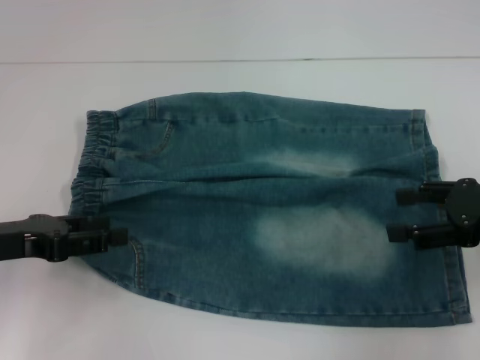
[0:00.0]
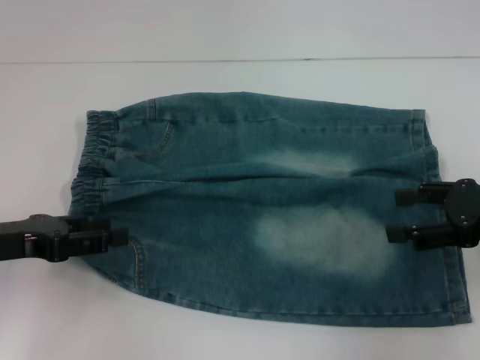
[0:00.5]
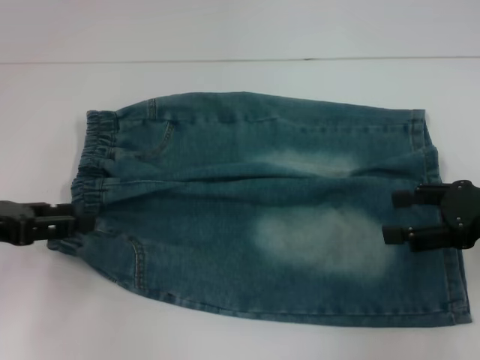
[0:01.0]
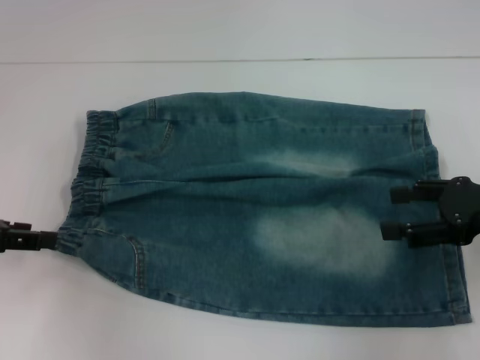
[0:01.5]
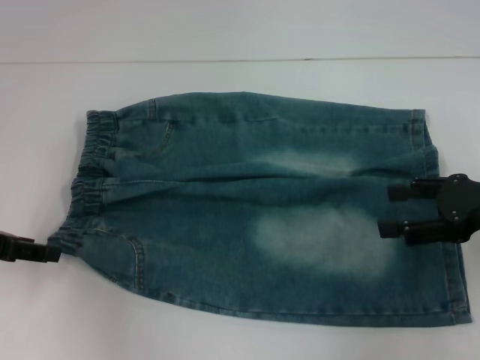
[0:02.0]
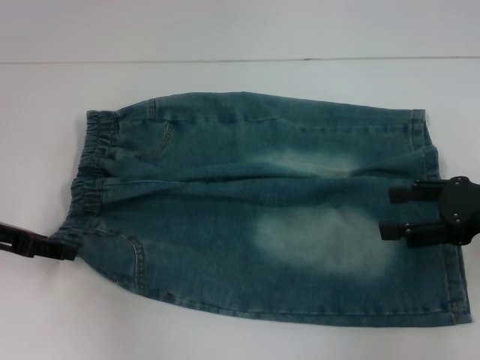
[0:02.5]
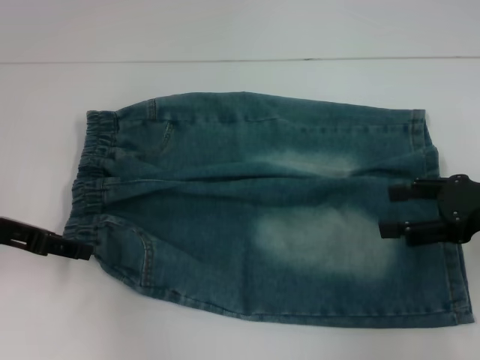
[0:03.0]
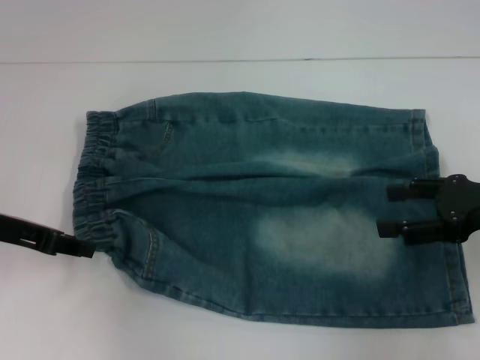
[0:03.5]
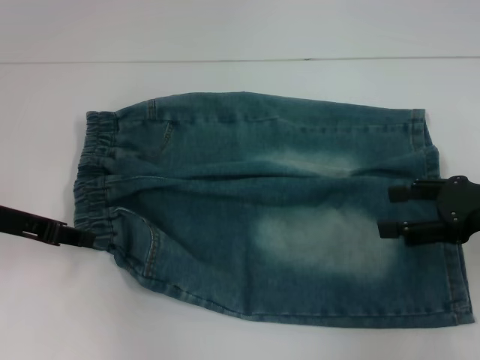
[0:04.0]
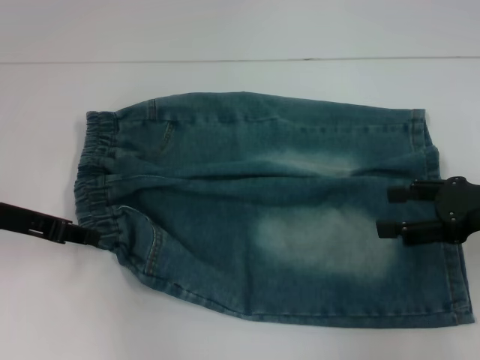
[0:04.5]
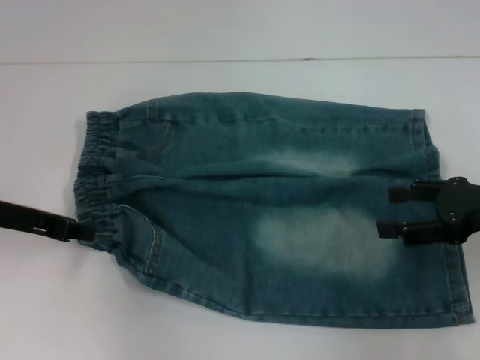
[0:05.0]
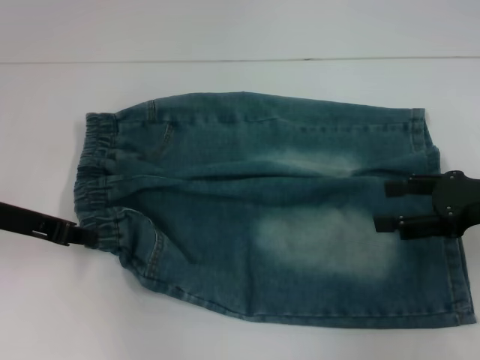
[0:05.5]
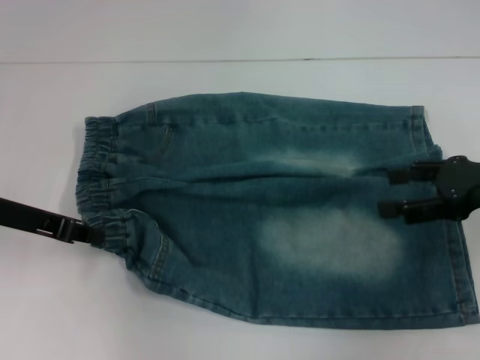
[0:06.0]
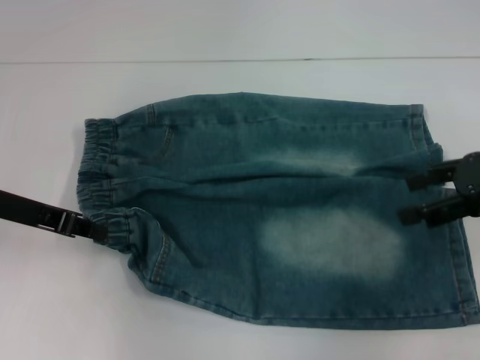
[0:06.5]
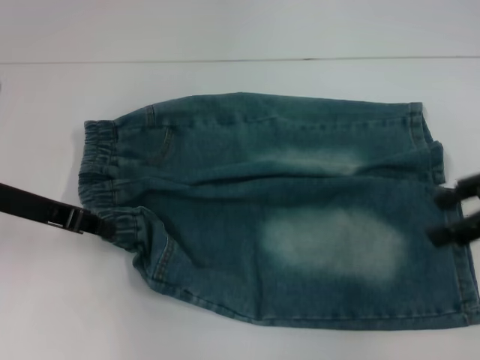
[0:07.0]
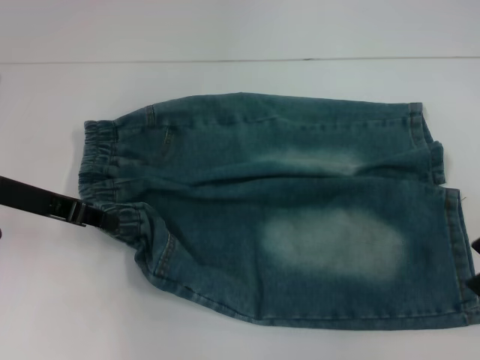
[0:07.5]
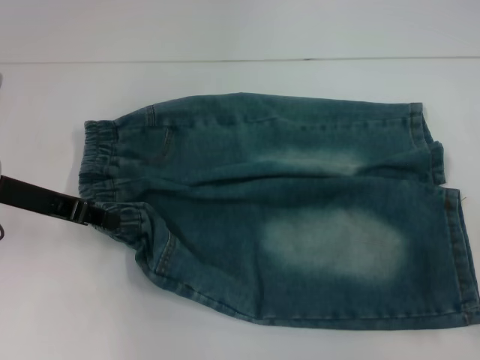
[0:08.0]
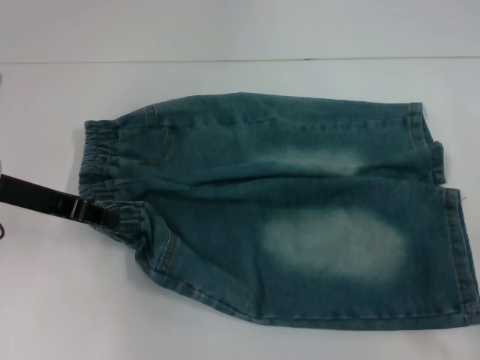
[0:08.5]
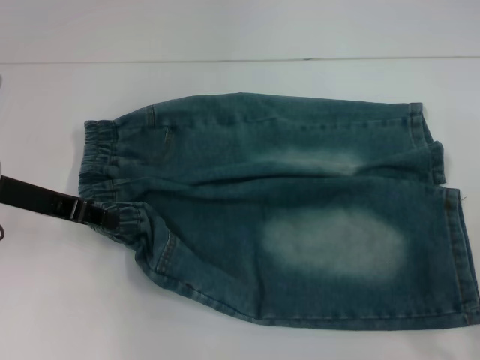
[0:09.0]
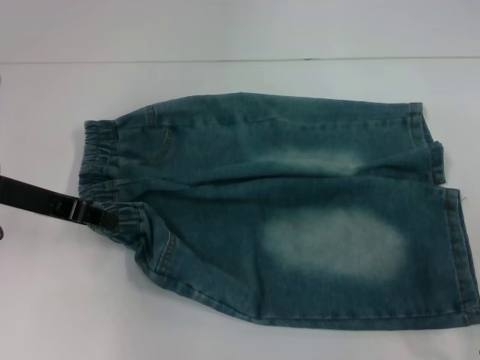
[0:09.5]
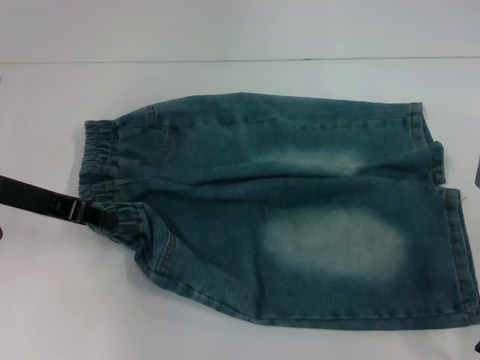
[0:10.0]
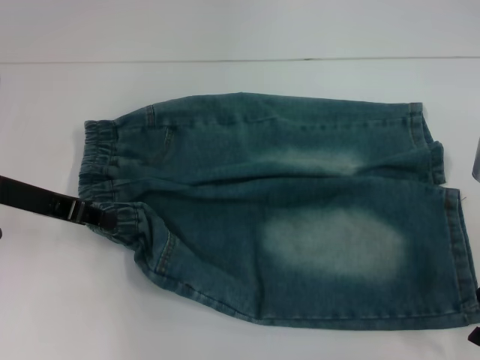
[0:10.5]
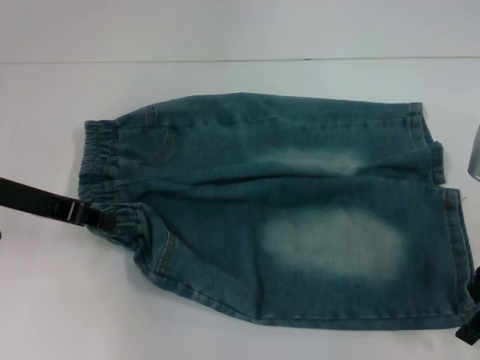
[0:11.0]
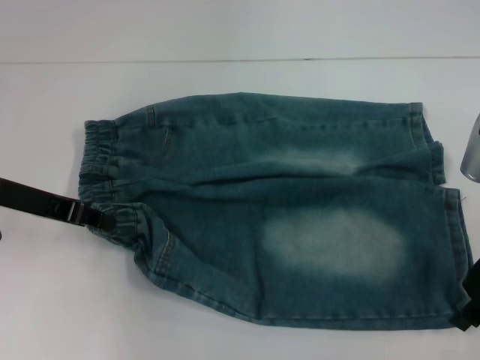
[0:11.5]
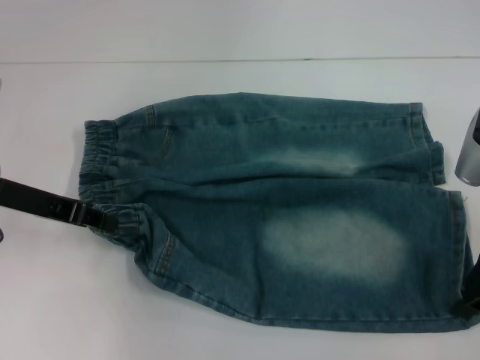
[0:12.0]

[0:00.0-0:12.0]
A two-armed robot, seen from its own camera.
Step, 0:00.0 to 0:05.5: Hold the lower left waistband with your left hand.
0:02.0 to 0:04.0: The left gripper closes its fingers.
0:04.0 to 0:06.0: The grippers stay close to where they were, moving slightly.
0:10.0 to 0:12.0: The right gripper closes its fingers.

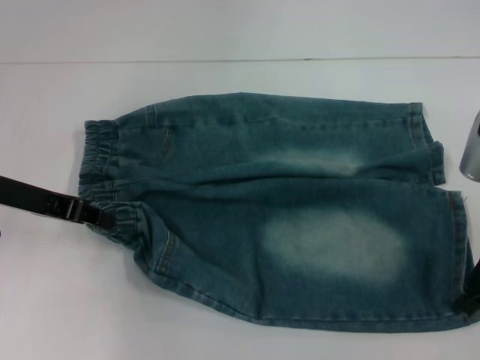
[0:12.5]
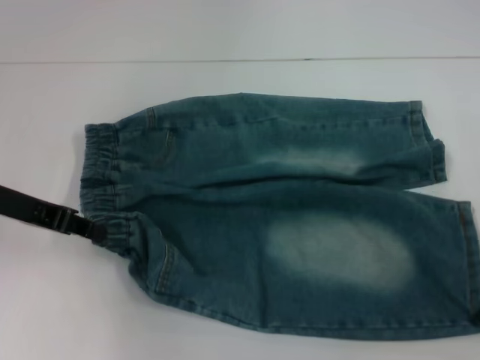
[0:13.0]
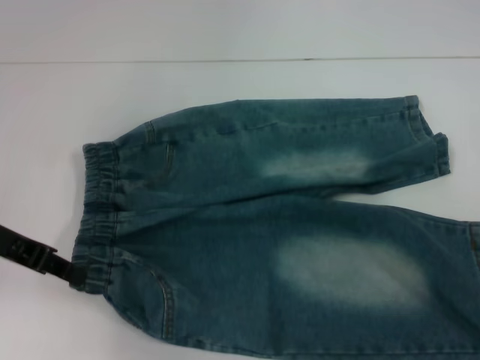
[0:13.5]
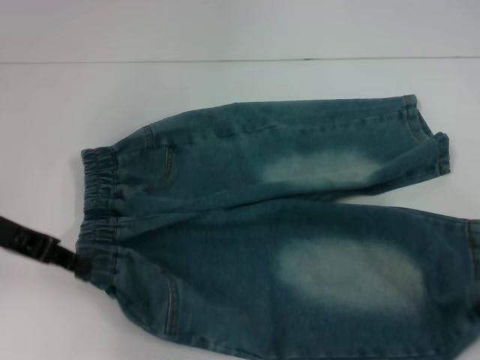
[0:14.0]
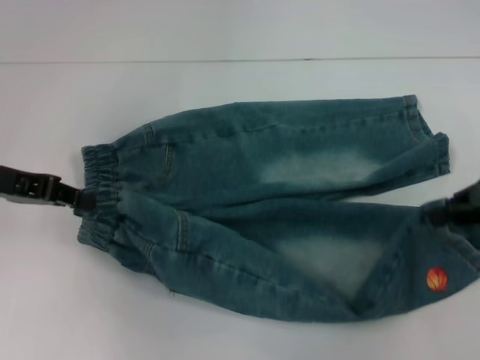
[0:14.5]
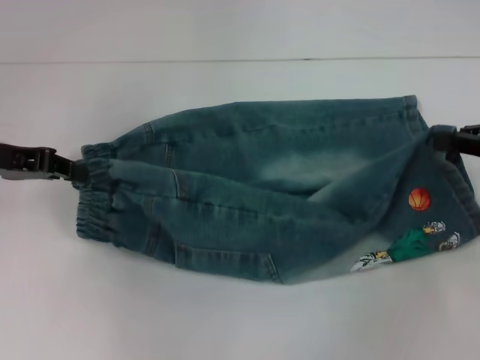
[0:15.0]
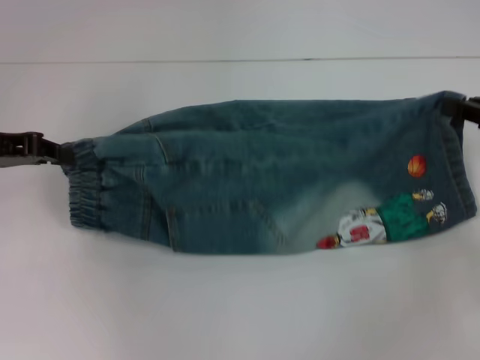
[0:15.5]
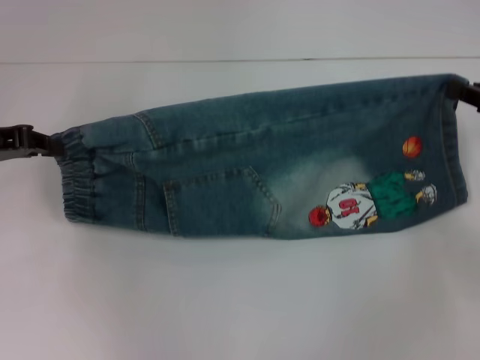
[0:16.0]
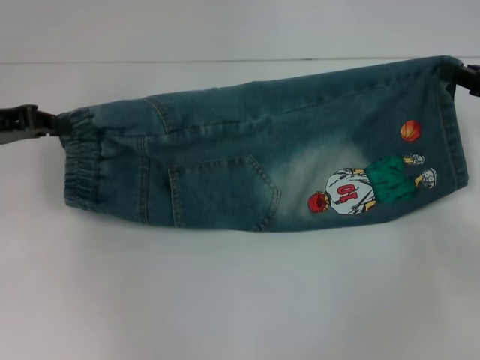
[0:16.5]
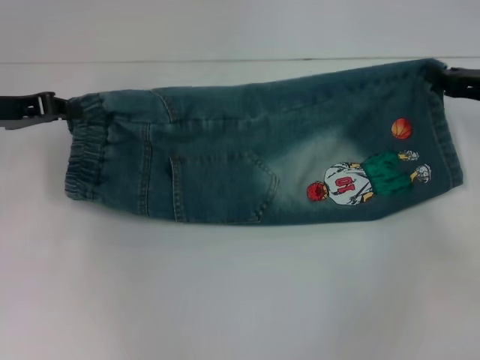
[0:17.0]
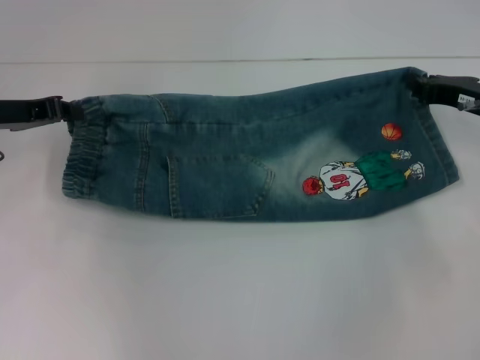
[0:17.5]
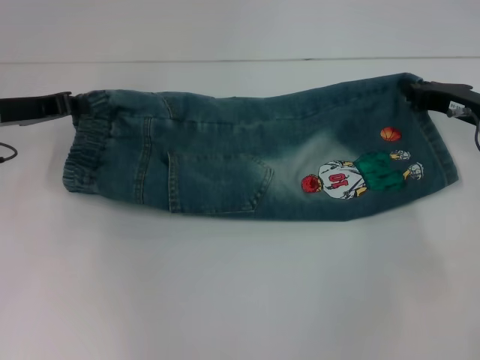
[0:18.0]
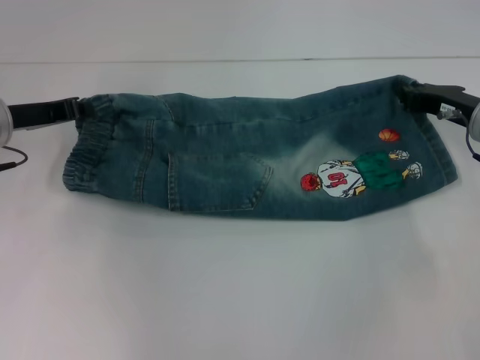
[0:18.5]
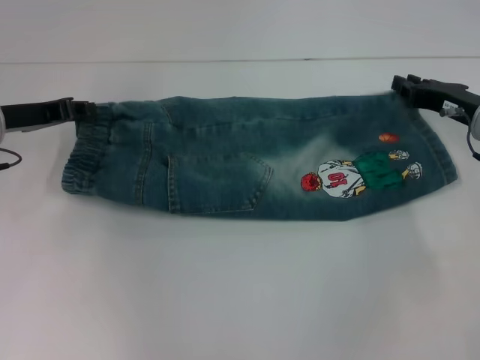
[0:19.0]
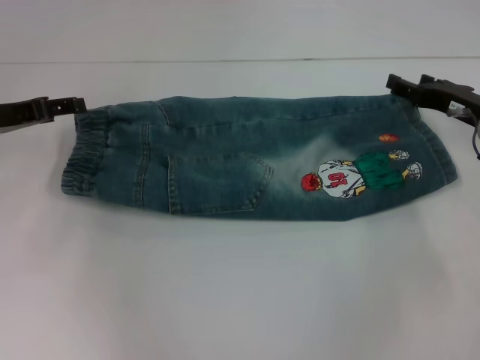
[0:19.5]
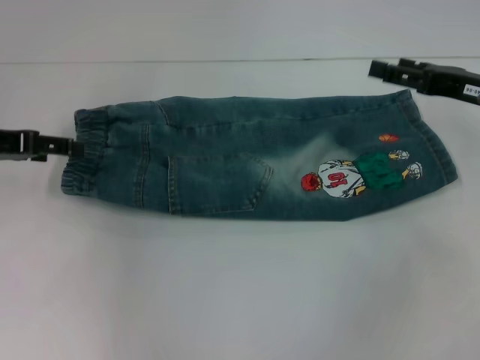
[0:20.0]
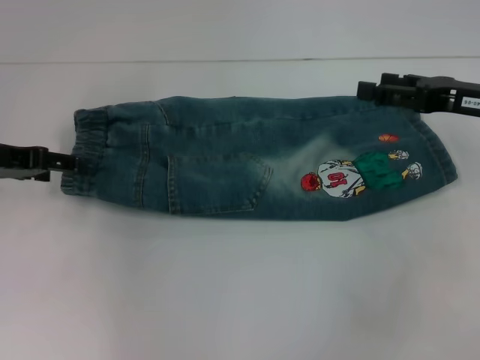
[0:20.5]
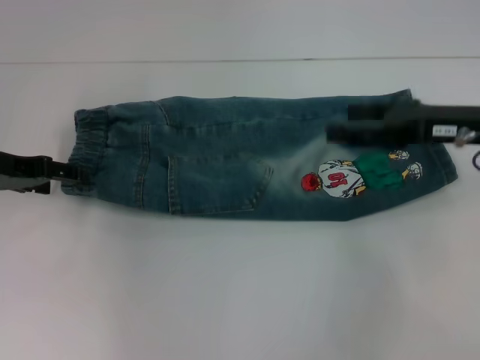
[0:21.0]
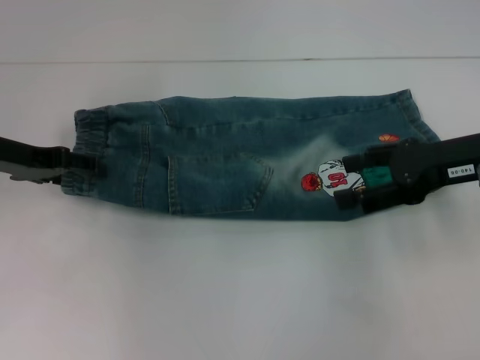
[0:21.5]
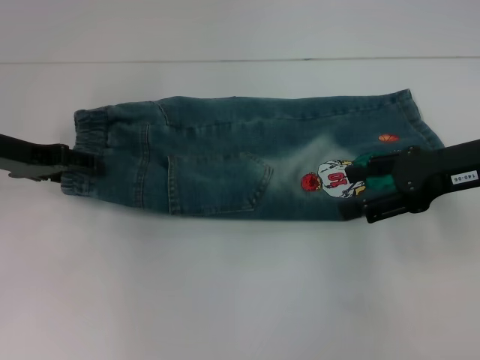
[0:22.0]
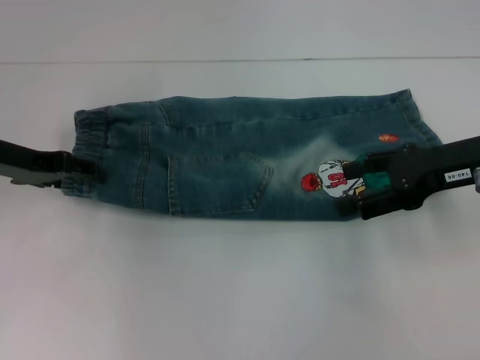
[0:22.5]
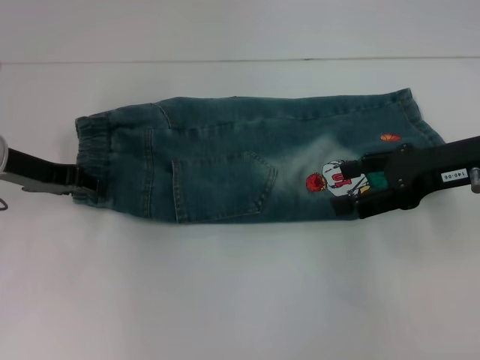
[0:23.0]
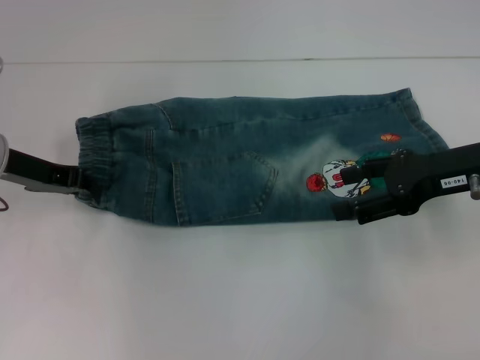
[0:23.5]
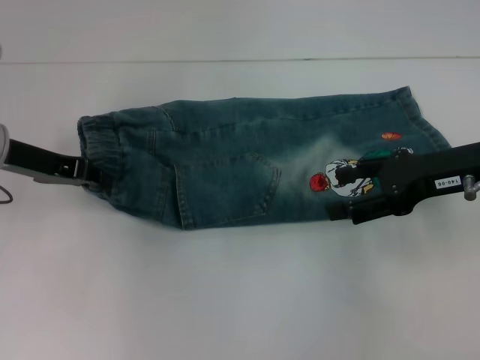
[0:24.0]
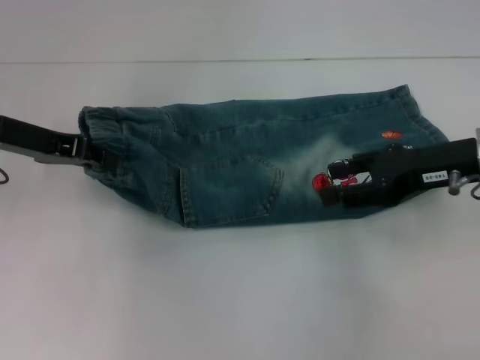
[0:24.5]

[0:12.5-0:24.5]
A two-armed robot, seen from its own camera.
Step, 0:13.0 to 0:19.0: Fold upward with your right hand.
Step, 0:19.5 to 0:23.5: Hold the waistband with your left hand.
0:12.5 to 0:14.5: The right gripper shifts about 5 cm to the right.
0:16.5 to 0:18.5: The right gripper is displaced to the left and downward by approximately 10 cm. Meanwhile the left gripper changes place by about 5 cm.
0:18.5 to 0:20.5: The left gripper changes place by approximately 5 cm, and opens up, while the right gripper heads upward, covering approximately 5 cm, and opens its fingers.
0:22.5 to 0:24.5: The left gripper closes up.

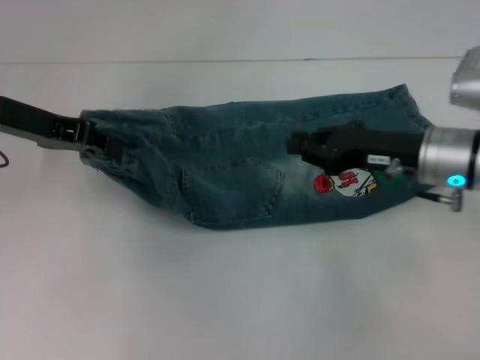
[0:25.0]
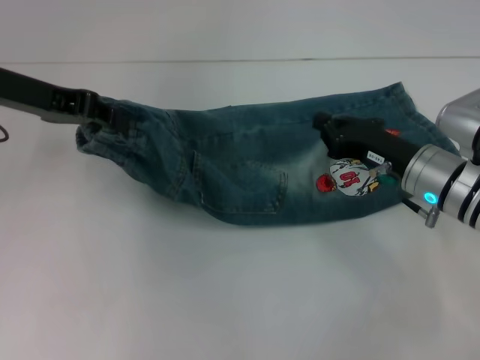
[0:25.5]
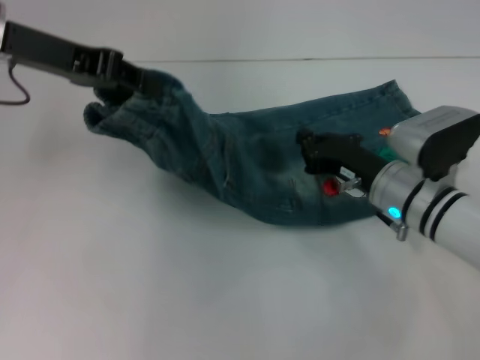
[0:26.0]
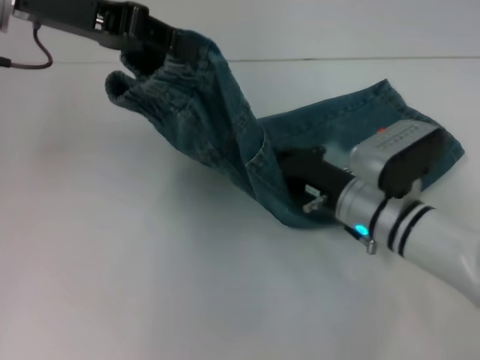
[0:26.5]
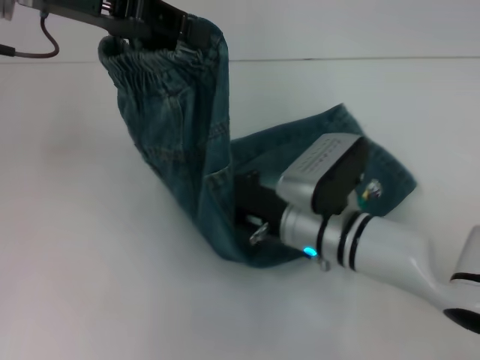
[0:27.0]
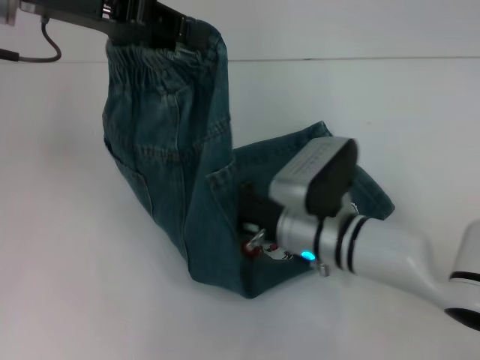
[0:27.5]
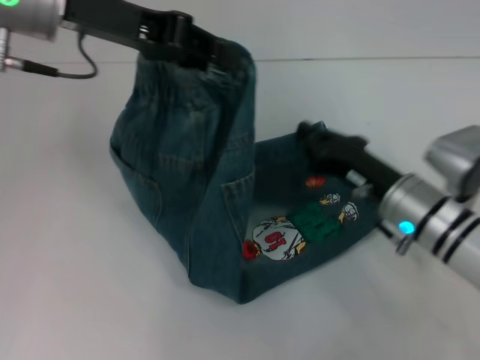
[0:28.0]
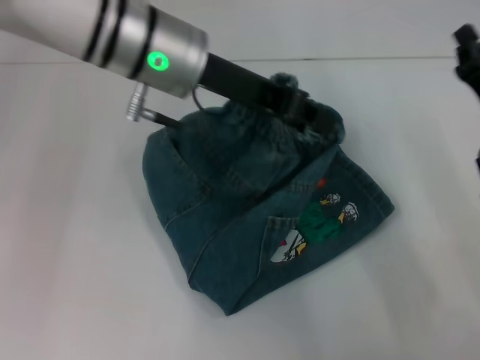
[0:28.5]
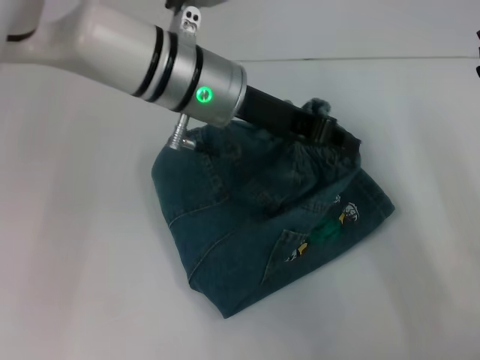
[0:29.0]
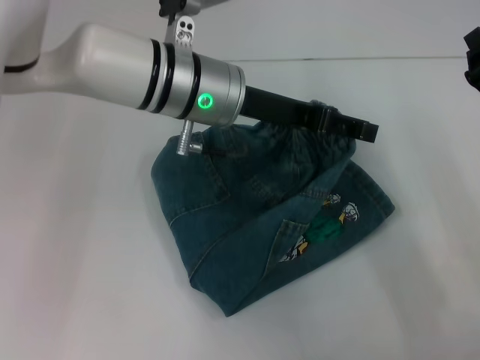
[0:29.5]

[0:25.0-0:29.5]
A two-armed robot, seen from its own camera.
Step, 0:25.0 to 0:27.0: Press the middle of the pants with your right hand.
0:25.0 to 0:27.0: The left gripper heads upward and to the right, covering roughly 10 cm, while the right gripper is displaced to the left and downward by roughly 15 cm, and closes its fingers.
0:27.0 to 0:29.5: The right gripper is displaced to the right by some 20 cm. Meanwhile the left gripper shifts approximately 20 cm to the right and downward, and opens.
